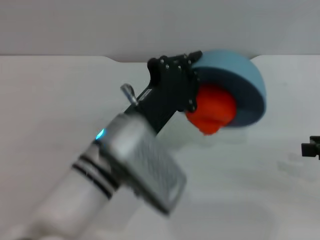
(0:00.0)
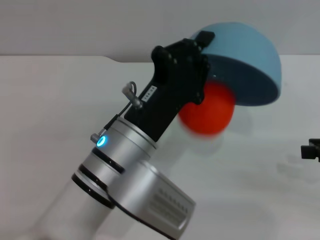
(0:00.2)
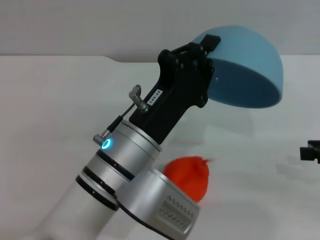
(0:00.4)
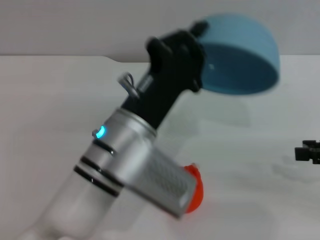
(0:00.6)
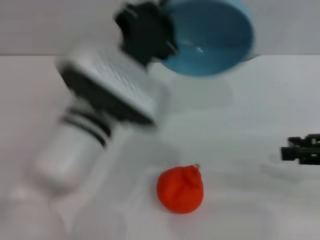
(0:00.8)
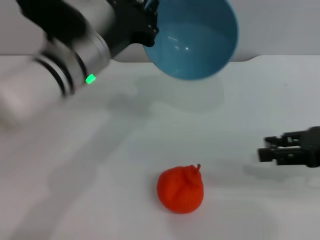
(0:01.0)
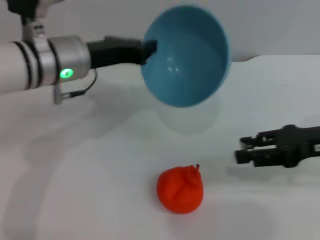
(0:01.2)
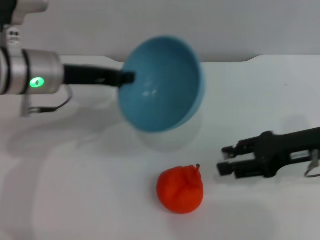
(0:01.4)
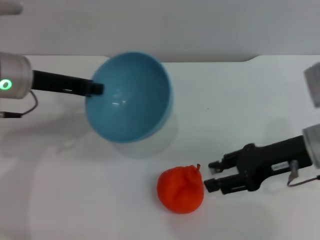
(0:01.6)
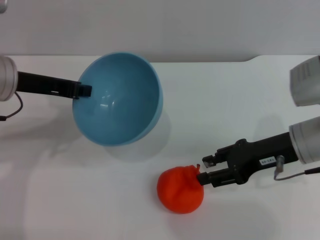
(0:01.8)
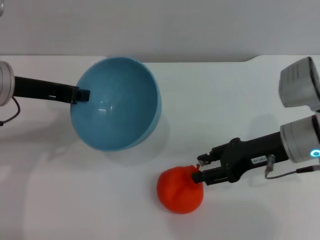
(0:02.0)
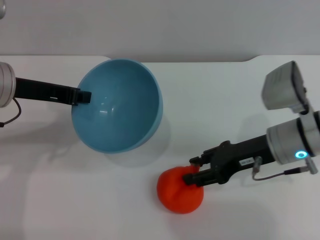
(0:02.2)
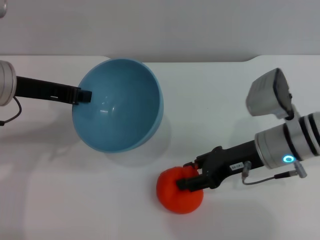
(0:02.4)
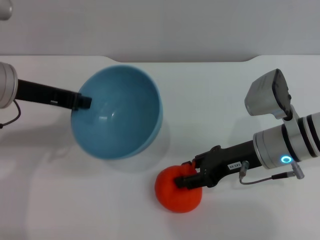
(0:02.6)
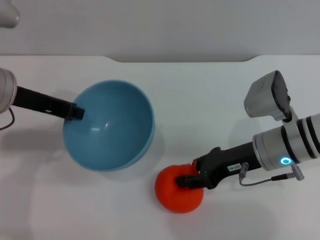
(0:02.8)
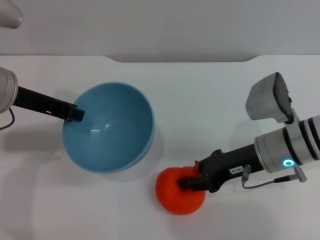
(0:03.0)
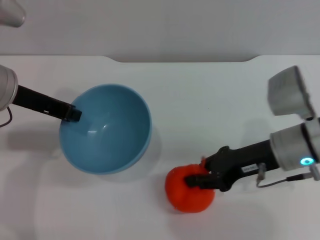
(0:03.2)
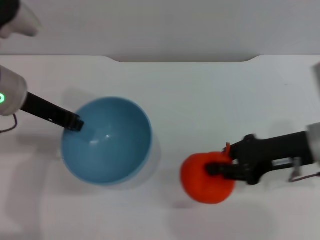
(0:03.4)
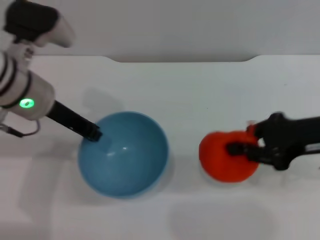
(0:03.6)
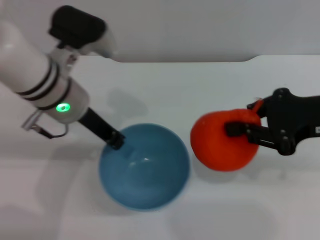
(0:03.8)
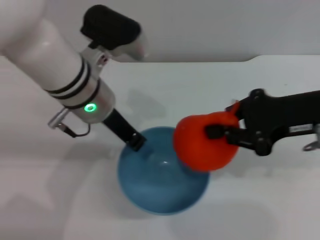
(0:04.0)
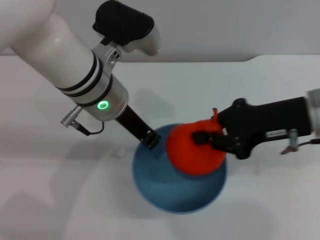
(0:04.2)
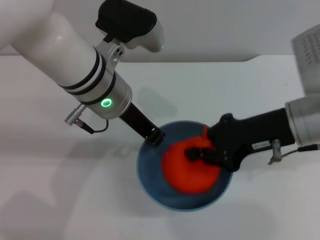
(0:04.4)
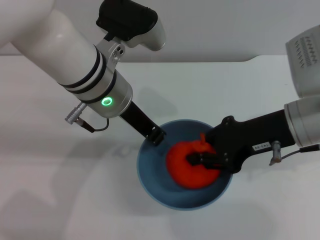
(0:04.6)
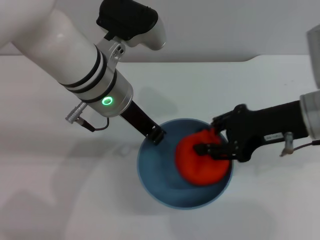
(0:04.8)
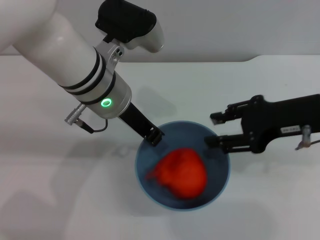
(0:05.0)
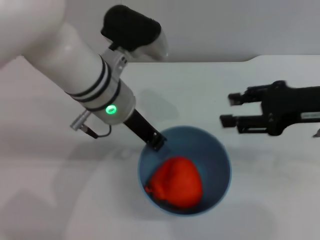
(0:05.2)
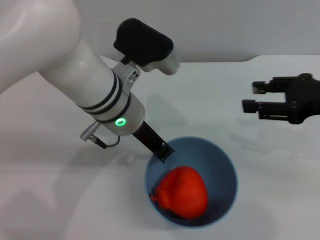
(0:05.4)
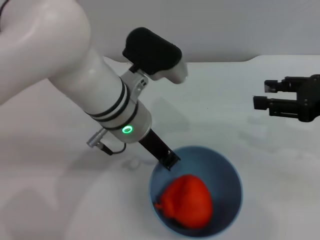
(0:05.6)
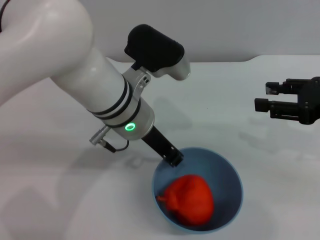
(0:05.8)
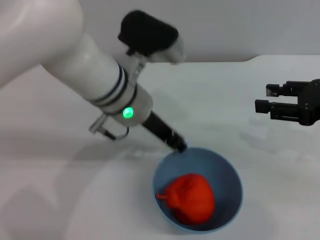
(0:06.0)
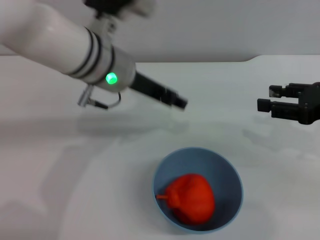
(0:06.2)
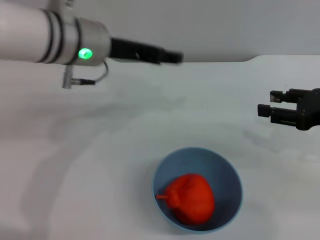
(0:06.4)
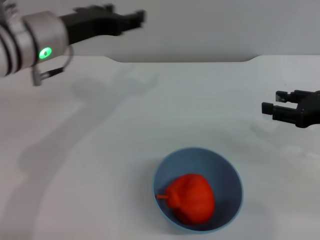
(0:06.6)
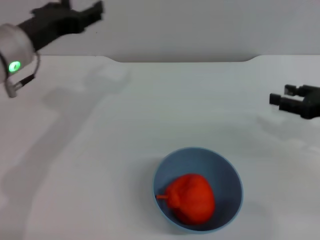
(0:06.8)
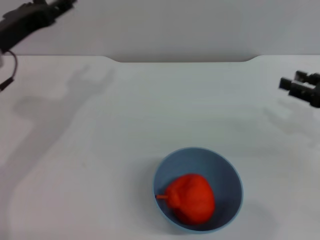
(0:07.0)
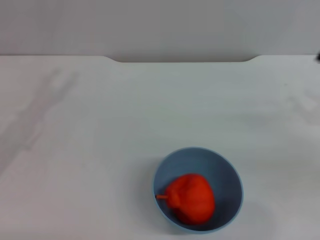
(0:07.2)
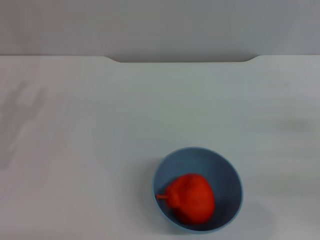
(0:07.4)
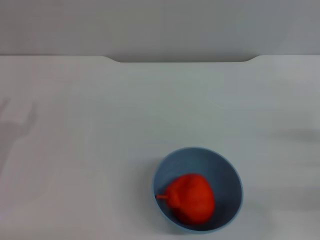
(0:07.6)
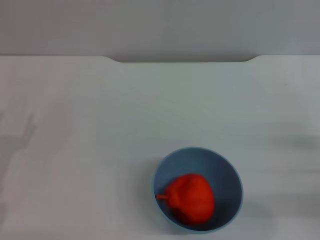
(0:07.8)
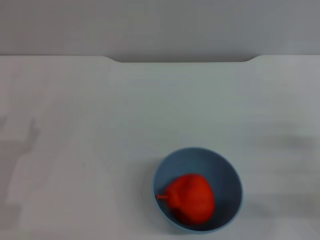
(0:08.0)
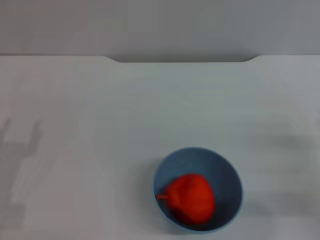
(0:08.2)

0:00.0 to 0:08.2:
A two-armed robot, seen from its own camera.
Task of the whole recording: put the orange into the blue bowl and pour it out repeatedly.
Step, 0:00.8 to 0:03.4: Pick up the orange with the right gripper.
Step, 0:03.8 to 0:04.8: Place the orange into the bowl.
Step, 0:05.0 to 0:06.2: Place the bowl on the table.
0:00.0 to 0:01.6: The right gripper goes about 15 cm to the left and forward. The left gripper shifts about 20 cm to the left, forward and upward.
0:01.6 to 0:03.2: The right gripper closes up.
0:03.2 to 0:05.0: The right gripper moves upward, about 10 cm, while the left gripper is displaced to the right by about 15 cm.
0:05.0 to 0:06.6: The right gripper heads to the right and downward, covering roughly 10 cm, and opens; the left gripper travels to the left by roughly 10 cm, and opens its fingers.
0:06.6 to 0:08.2: The right gripper is displaced downward and backward by some 10 cm; the left gripper moves downward, backward and to the left, some 25 cm.
